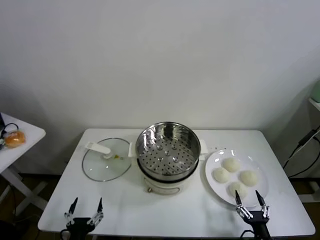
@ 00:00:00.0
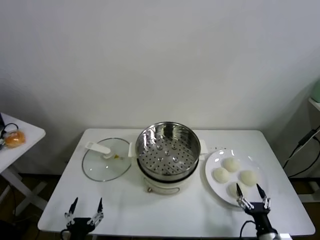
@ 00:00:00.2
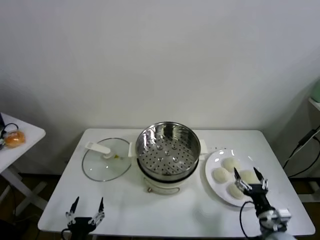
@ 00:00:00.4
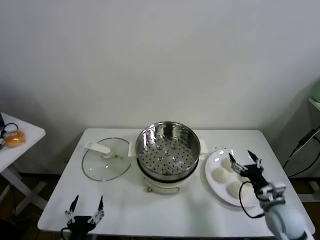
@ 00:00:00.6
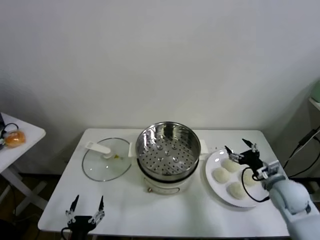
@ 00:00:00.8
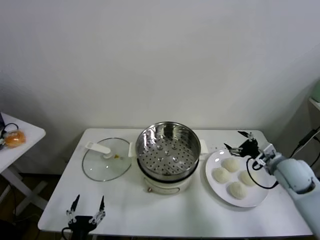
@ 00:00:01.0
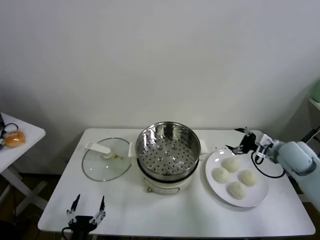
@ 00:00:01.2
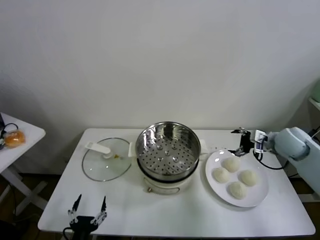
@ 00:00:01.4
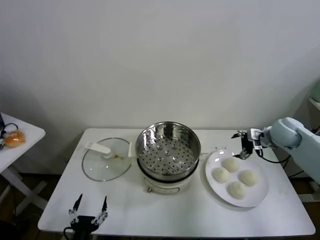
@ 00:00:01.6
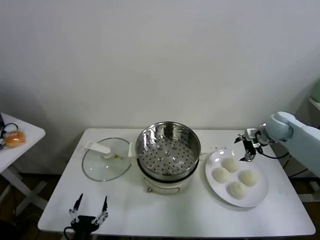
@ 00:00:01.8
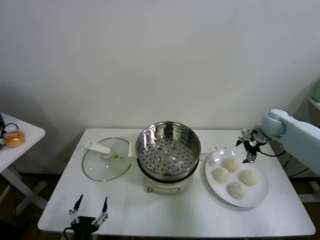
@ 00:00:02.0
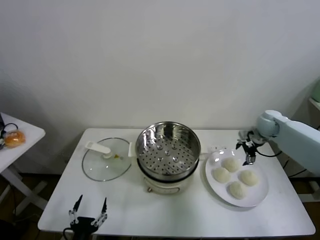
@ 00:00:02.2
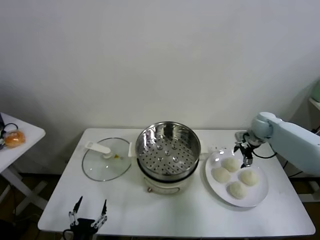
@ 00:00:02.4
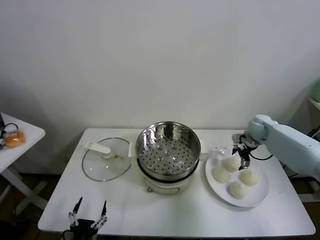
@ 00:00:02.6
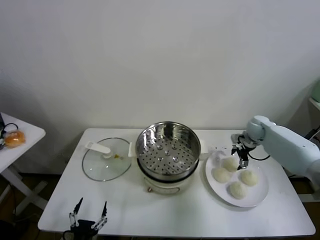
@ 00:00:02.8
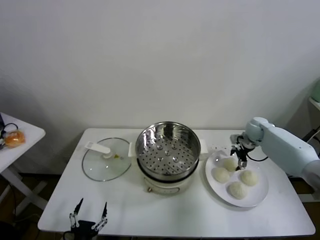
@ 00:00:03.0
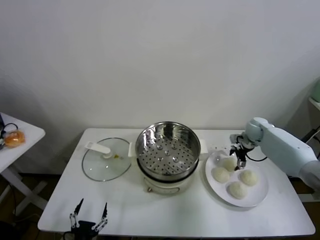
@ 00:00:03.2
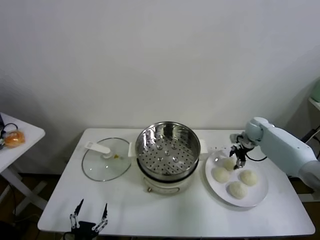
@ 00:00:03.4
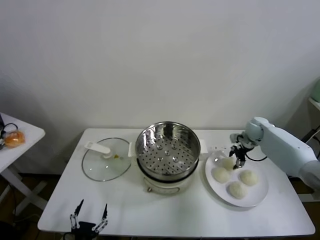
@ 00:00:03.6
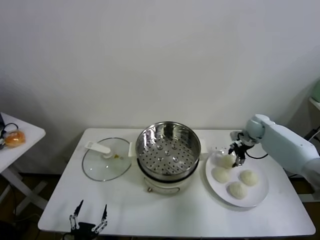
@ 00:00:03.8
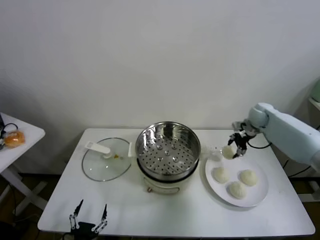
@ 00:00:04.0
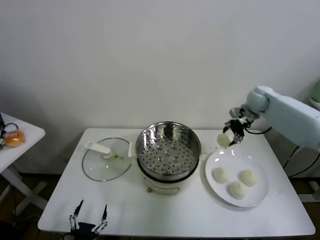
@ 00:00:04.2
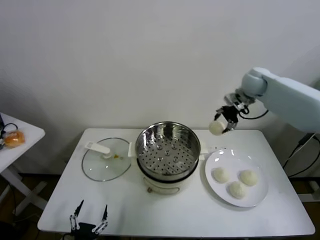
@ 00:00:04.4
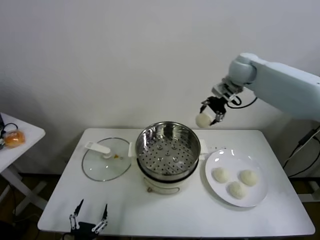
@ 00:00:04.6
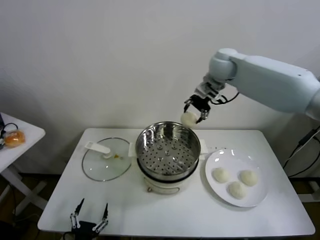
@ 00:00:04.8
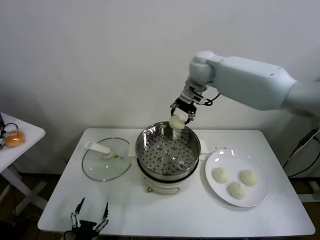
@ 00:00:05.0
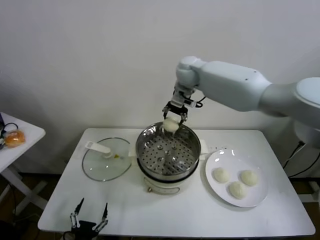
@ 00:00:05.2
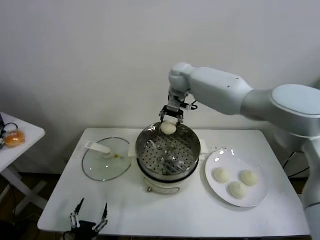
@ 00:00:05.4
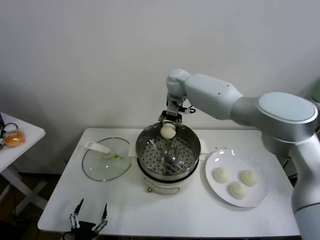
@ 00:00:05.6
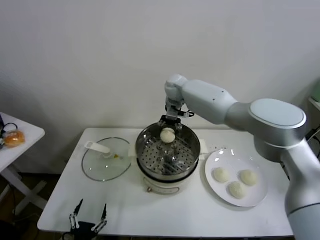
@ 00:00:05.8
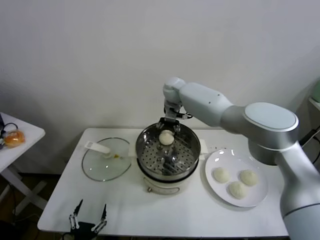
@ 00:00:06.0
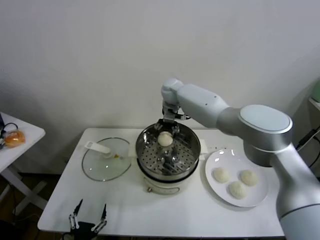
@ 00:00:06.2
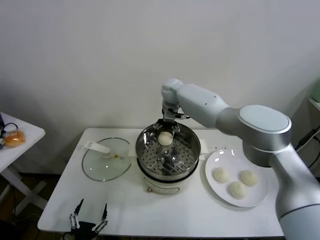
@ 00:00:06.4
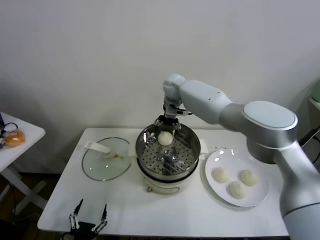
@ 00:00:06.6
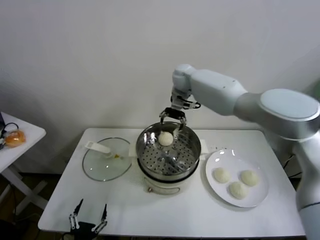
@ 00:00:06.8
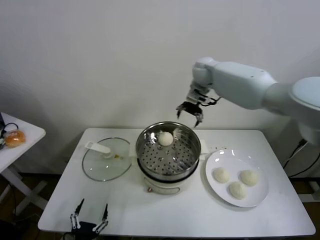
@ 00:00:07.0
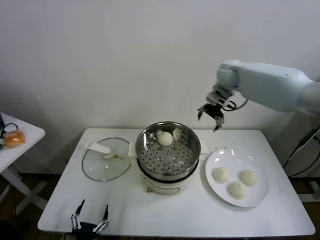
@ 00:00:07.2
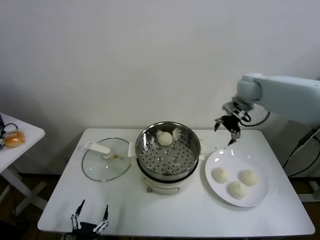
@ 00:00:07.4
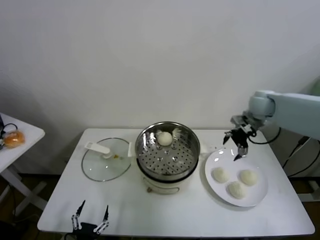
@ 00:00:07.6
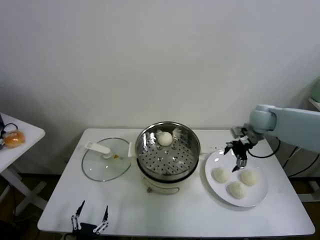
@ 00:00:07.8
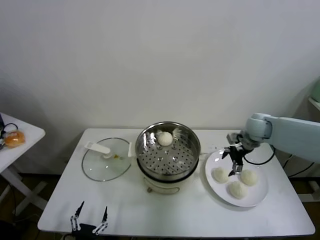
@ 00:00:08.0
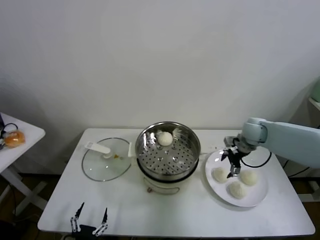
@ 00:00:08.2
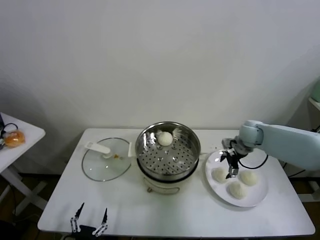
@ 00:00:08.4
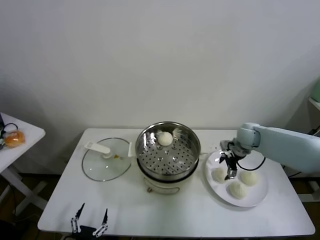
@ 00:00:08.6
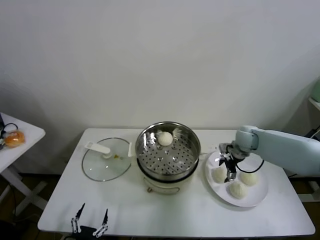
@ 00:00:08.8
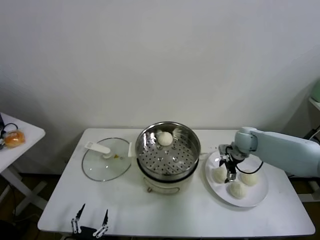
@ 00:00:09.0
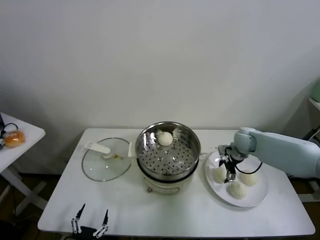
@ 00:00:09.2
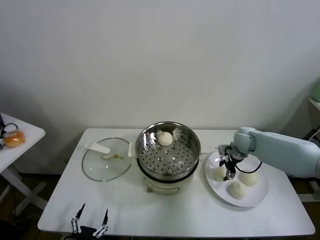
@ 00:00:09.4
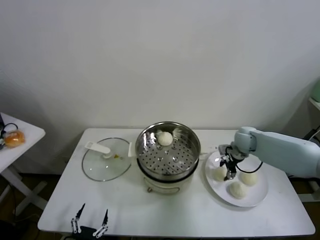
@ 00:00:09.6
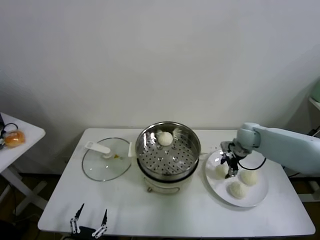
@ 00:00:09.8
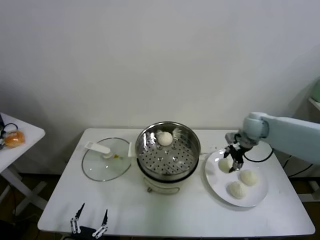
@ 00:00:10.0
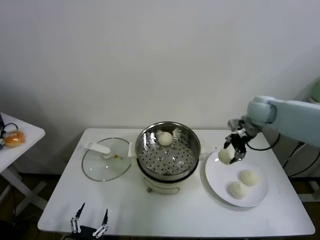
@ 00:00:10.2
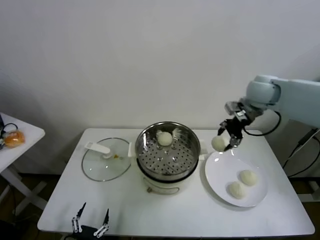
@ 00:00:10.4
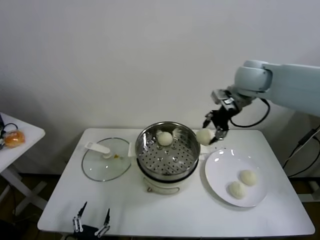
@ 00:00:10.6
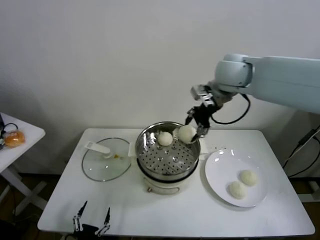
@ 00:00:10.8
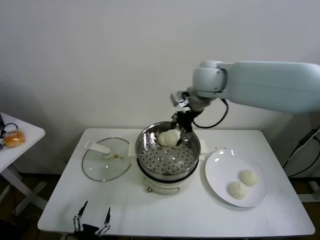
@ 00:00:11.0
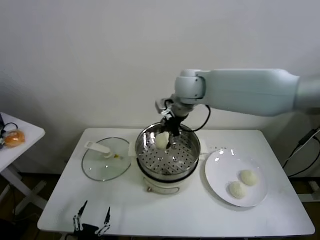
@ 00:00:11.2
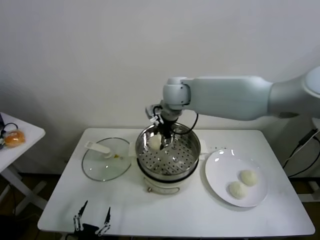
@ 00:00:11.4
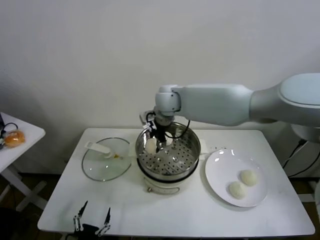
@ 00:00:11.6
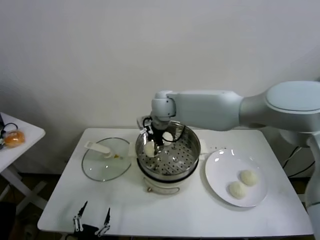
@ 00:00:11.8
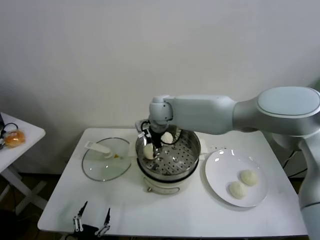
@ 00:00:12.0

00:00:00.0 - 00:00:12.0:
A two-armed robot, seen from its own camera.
Task of the whole recording: take steamed baozi put them in steamer.
Step, 00:00:00.0 - 00:00:03.4: Grasp the baozi in the plate with right gripper.
Step, 00:00:03.6 - 00:00:06.4: Place the baozi on the steamer with right gripper.
Step, 00:00:06.6 - 00:00:09.4: Grasp the baozi in the plate with right gripper.
00:00:01.6 - 00:00:03.0: The right gripper moves downward and forward, about 10 cm.
00:00:03.0 - 00:00:04.4: The right gripper heads upward and to the left, covering approximately 25 cm, and closes its fingers.
00:00:04.4 - 00:00:06.0: The right gripper shifts some 25 cm to the left.
00:00:06.0 - 00:00:07.6: The right gripper heads to the right, covering roughly 30 cm, and opens up.
00:00:07.6 - 00:00:09.0: The right gripper heads downward, covering approximately 15 cm.
00:00:09.0 - 00:00:10.4: The right gripper travels upward by approximately 25 cm, and closes.
00:00:10.4 - 00:00:12.0: The right gripper travels to the left by roughly 30 cm.

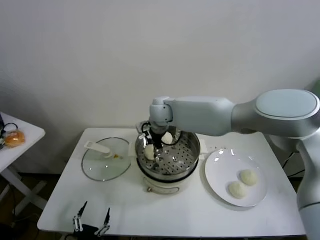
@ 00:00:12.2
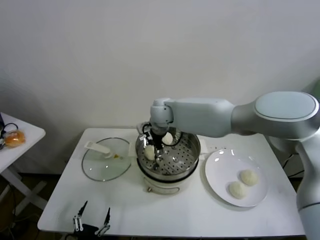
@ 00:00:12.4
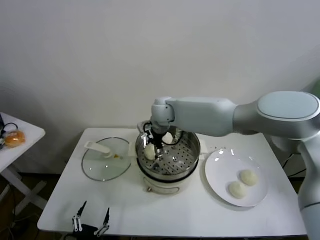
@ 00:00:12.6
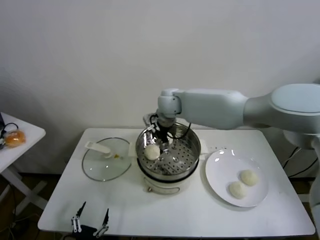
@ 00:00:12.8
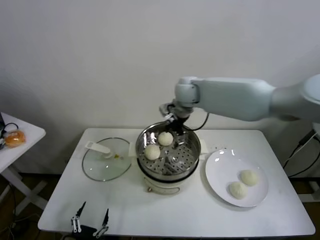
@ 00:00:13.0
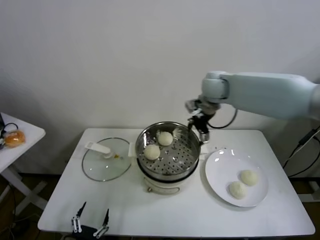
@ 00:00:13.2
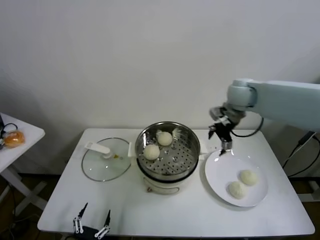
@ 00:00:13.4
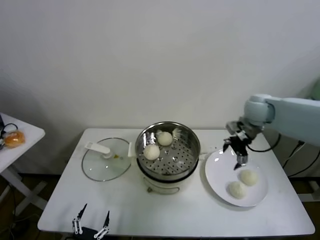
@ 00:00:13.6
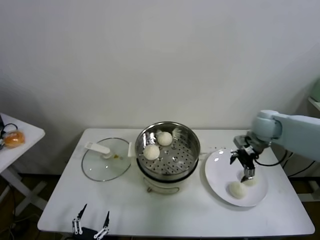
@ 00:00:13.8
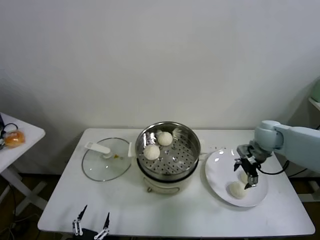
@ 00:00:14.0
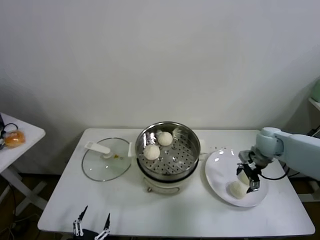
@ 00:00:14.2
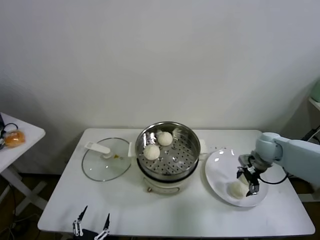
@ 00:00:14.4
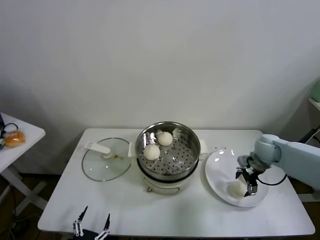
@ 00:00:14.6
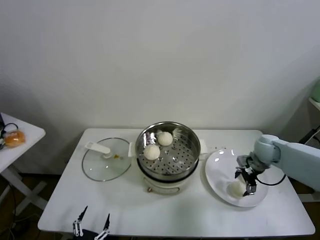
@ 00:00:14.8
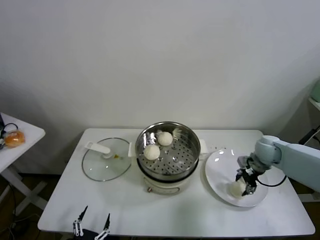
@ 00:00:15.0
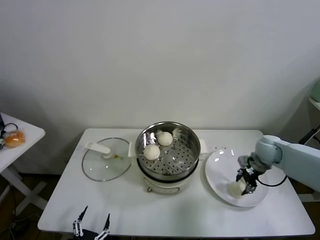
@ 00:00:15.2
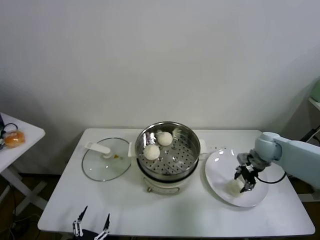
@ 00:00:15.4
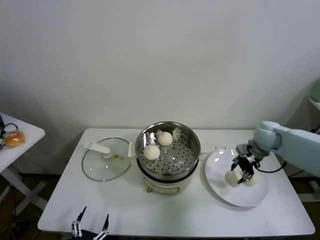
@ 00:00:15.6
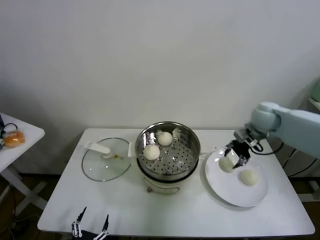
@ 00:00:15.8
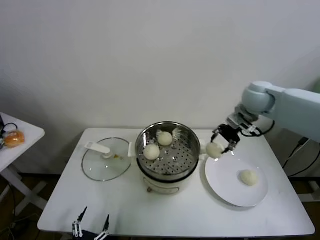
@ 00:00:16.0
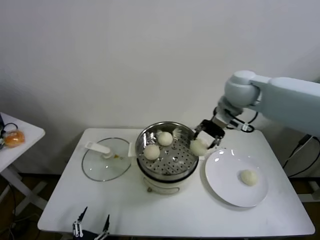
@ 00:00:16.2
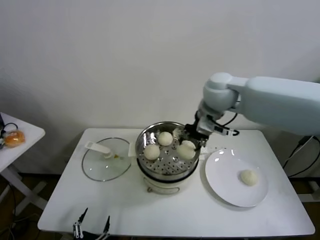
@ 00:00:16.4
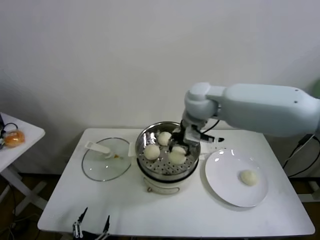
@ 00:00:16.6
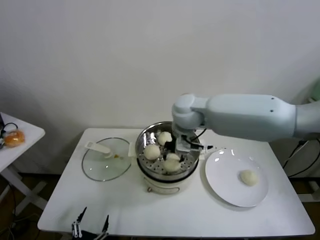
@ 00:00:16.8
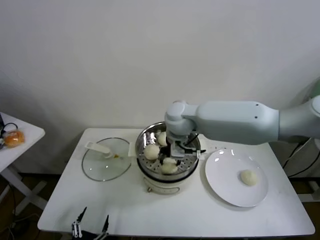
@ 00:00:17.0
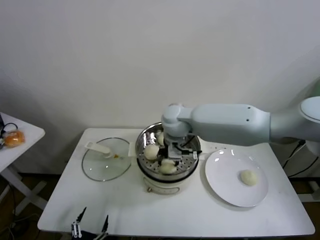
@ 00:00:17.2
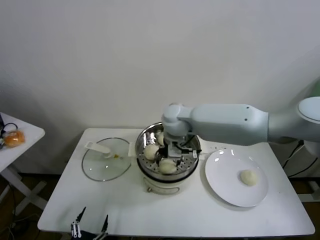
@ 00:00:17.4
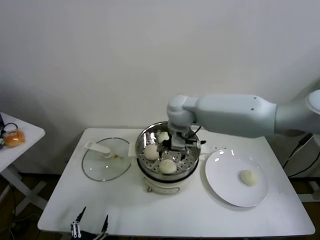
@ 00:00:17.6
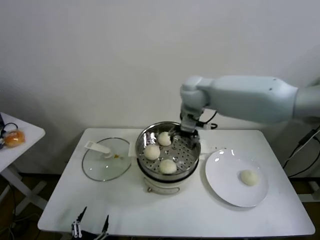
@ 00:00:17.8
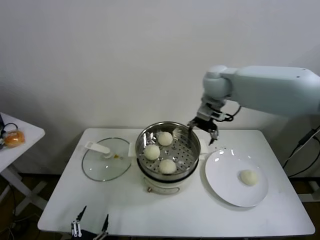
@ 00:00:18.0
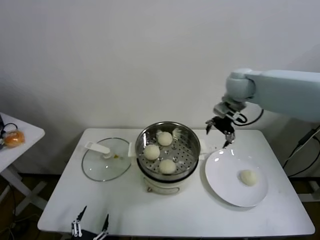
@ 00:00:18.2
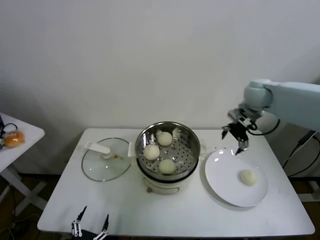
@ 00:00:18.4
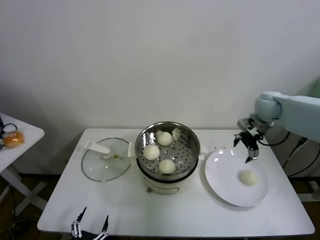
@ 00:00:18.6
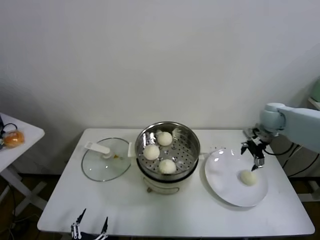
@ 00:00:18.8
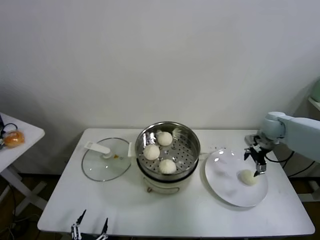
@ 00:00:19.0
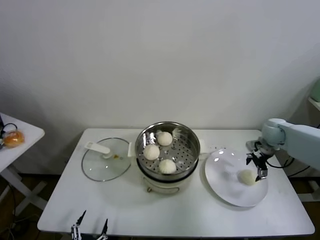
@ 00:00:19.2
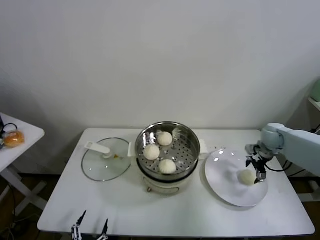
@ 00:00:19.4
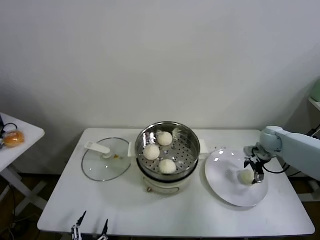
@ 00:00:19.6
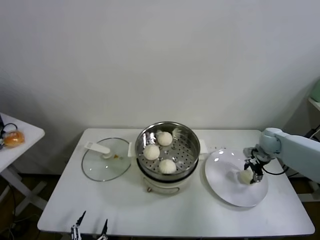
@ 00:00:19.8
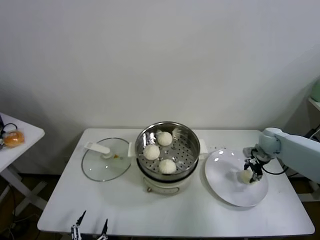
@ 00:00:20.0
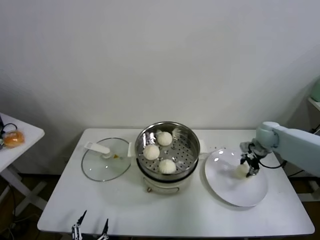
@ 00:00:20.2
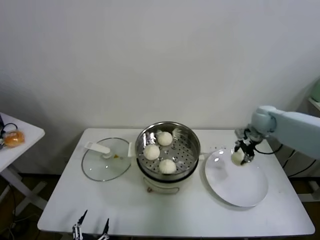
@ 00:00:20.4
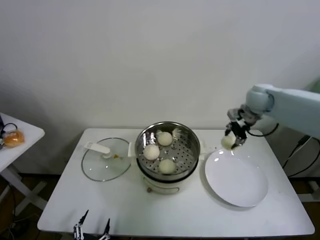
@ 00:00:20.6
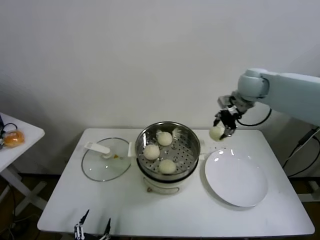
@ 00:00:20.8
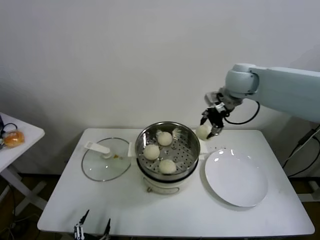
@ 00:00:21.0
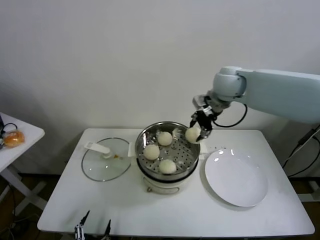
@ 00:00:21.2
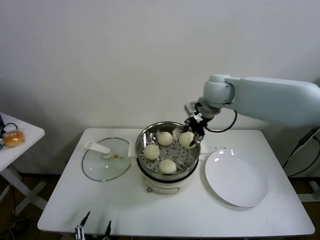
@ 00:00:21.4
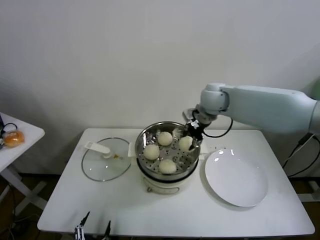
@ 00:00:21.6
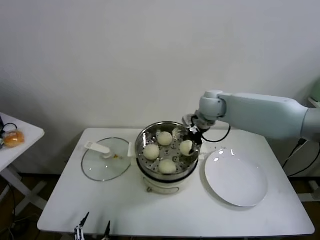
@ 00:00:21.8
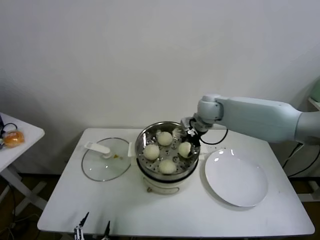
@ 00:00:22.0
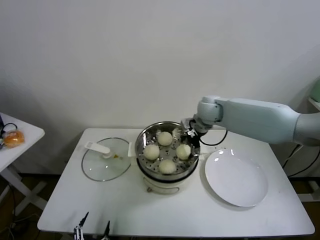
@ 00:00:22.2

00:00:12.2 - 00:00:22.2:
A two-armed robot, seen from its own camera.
Task of the whole recording: take steamed baozi put them in steamer.
Step, 00:00:12.8 - 00:00:15.0: Grasp the baozi in the plate with right gripper.
Step, 00:00:15.2 - 00:00:17.4: Place the baozi on the steamer with right gripper.
Step, 00:00:17.6 - 00:00:19.6: Grasp the baozi in the plate with right gripper.
Step, 00:00:20.0 - 00:00:22.2: Place the baozi on the steamer with right gripper.
00:00:12.2 - 00:00:13.6: The right gripper goes approximately 30 cm to the right, and opens its fingers.
00:00:13.6 - 00:00:15.0: The right gripper goes some 15 cm downward and to the right, and closes its fingers.
00:00:15.0 - 00:00:16.4: The right gripper goes some 35 cm upward and to the left.
00:00:16.4 - 00:00:18.0: The right gripper shifts about 5 cm forward, moves roughly 10 cm to the left and comes back, and opens up.
00:00:18.0 - 00:00:19.4: The right gripper moves to the right and downward, approximately 35 cm.
00:00:19.4 - 00:00:20.8: The right gripper travels upward and to the left by roughly 25 cm, and closes.
00:00:20.8 - 00:00:22.2: The right gripper goes roughly 15 cm to the left and downward, and opens.
